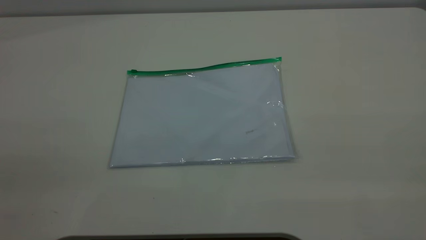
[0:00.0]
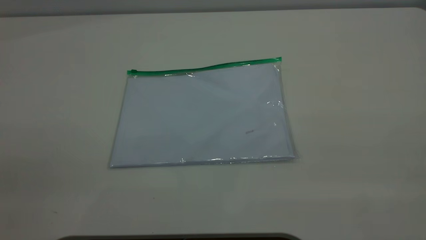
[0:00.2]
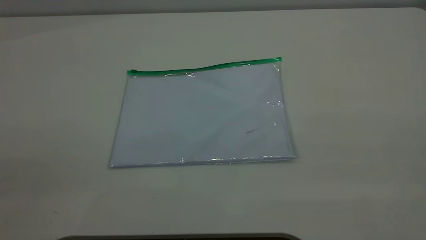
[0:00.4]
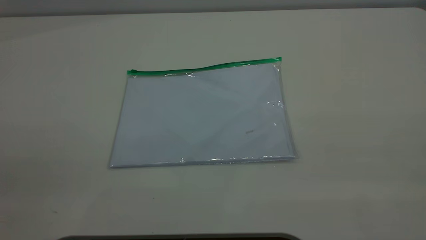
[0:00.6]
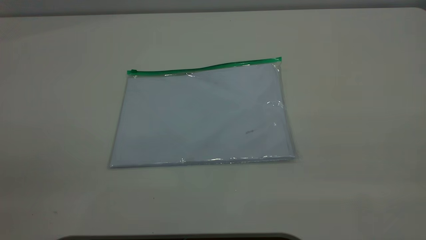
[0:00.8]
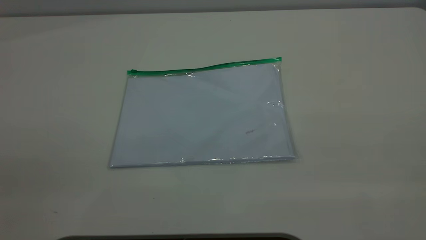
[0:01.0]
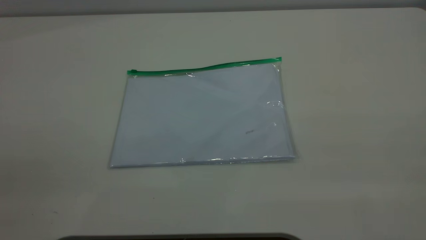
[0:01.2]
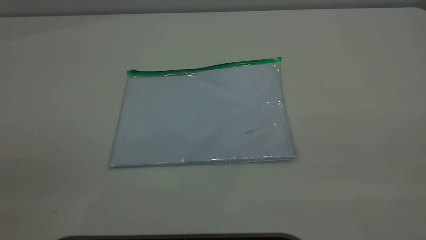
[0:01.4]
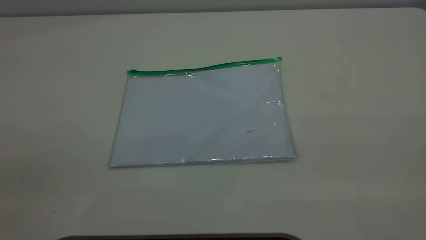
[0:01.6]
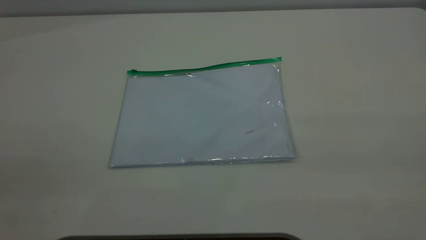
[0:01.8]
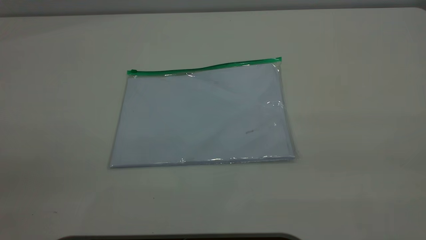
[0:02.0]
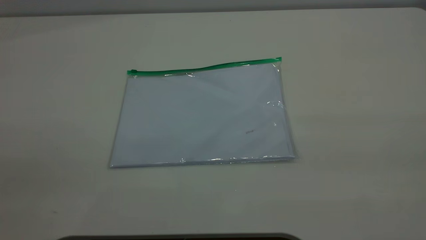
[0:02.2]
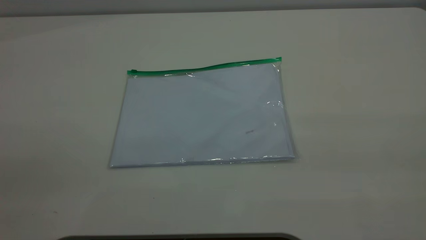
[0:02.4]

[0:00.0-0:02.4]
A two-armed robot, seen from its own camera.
0:00.0 to 0:01.2: The two grippers keep their place.

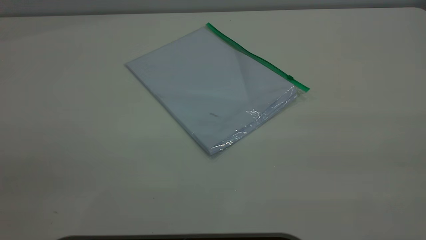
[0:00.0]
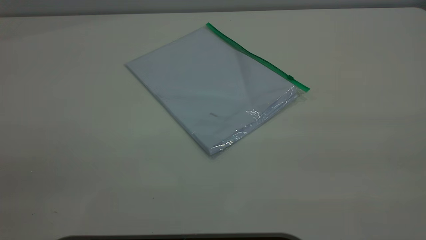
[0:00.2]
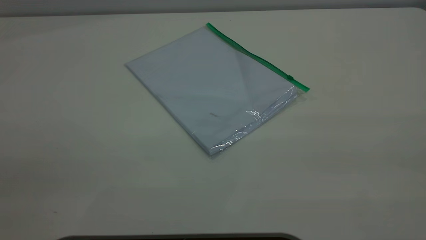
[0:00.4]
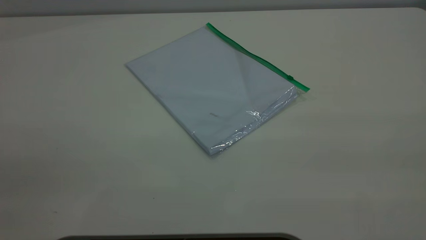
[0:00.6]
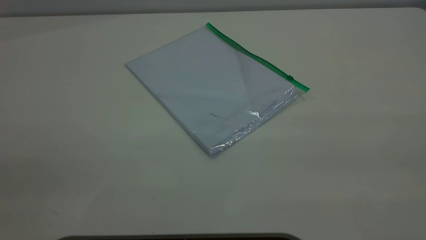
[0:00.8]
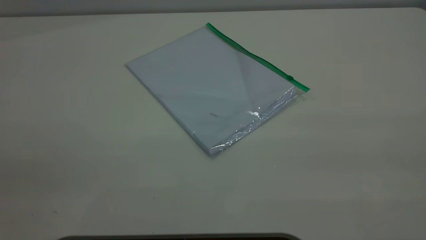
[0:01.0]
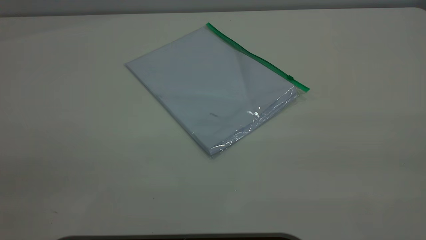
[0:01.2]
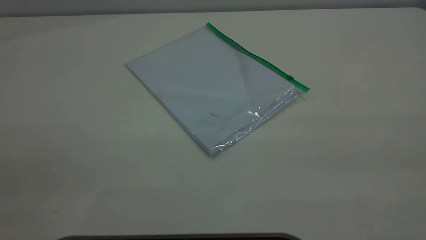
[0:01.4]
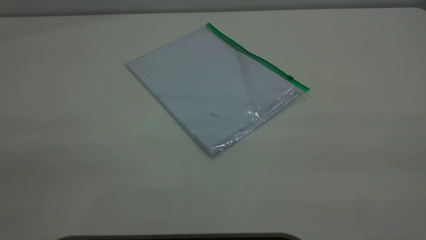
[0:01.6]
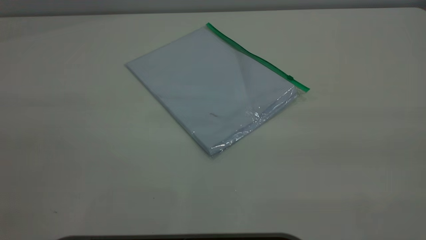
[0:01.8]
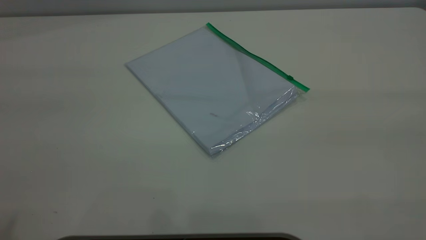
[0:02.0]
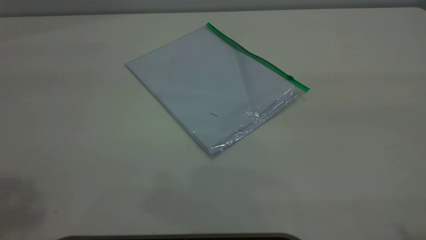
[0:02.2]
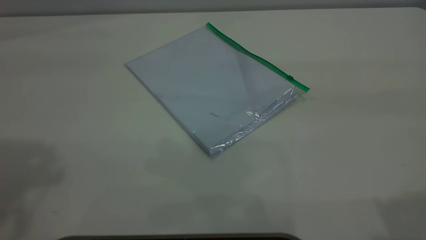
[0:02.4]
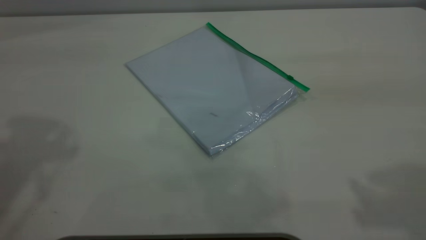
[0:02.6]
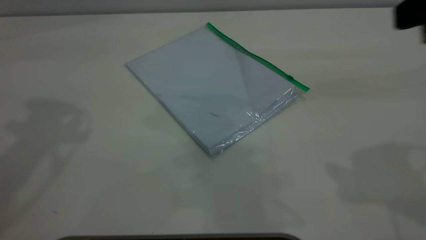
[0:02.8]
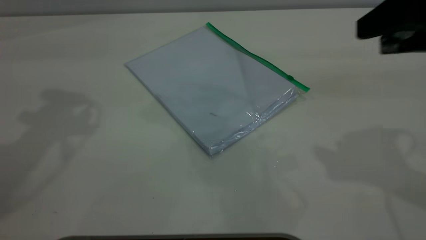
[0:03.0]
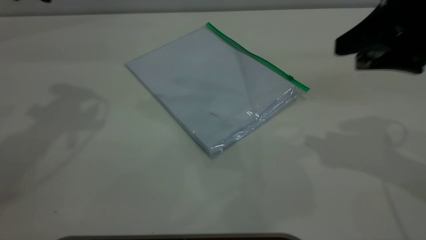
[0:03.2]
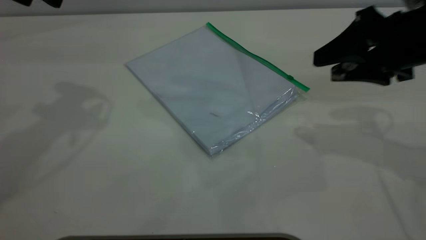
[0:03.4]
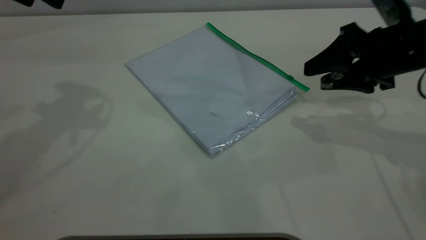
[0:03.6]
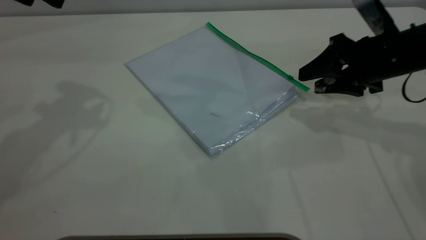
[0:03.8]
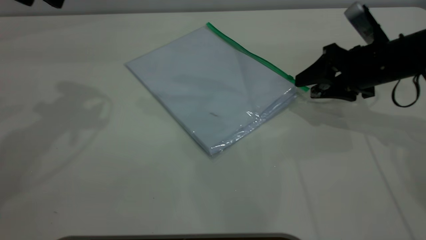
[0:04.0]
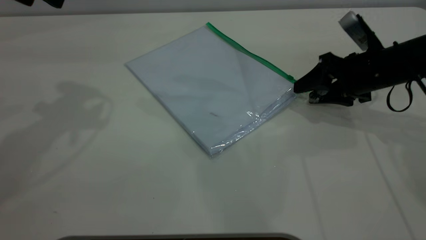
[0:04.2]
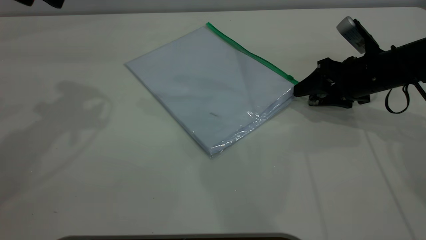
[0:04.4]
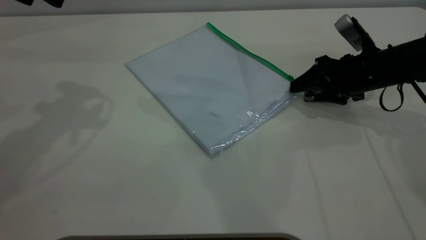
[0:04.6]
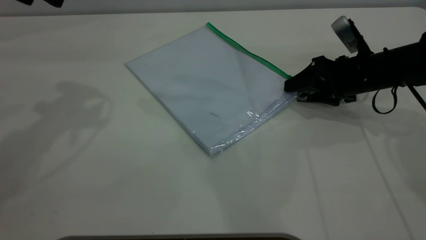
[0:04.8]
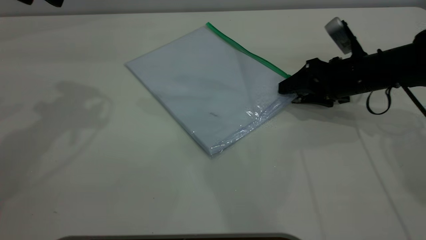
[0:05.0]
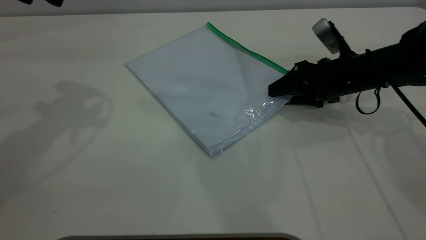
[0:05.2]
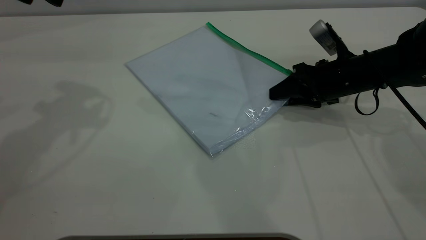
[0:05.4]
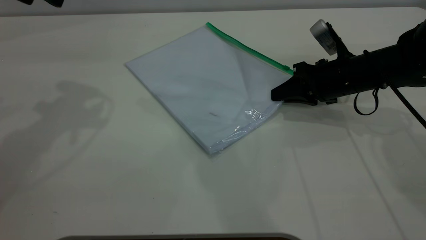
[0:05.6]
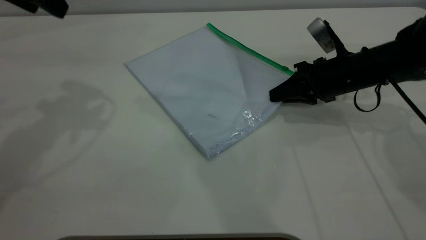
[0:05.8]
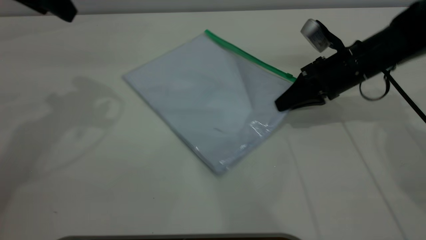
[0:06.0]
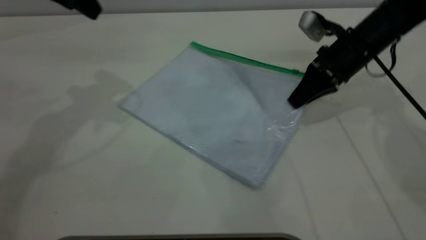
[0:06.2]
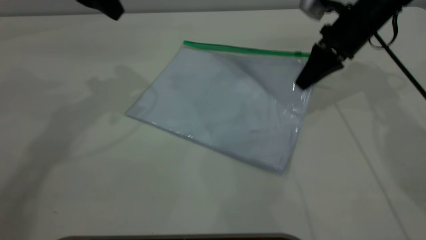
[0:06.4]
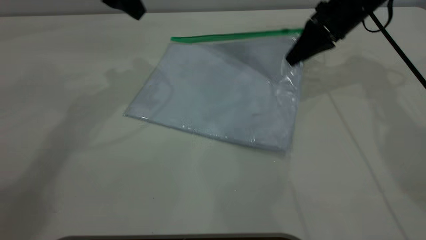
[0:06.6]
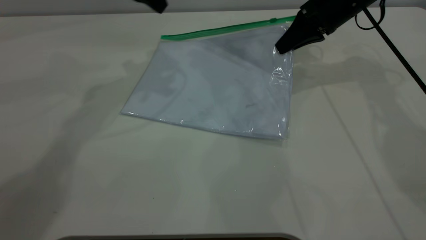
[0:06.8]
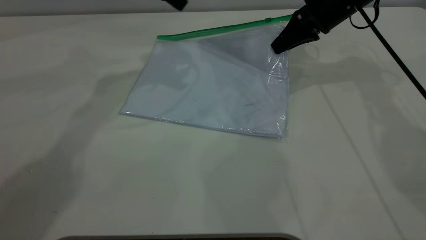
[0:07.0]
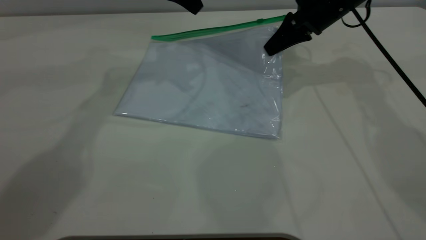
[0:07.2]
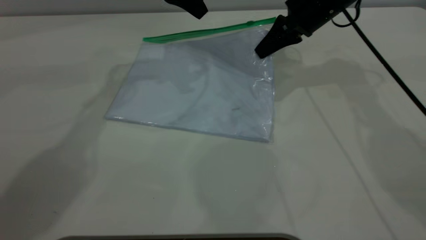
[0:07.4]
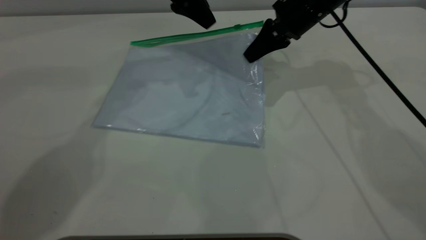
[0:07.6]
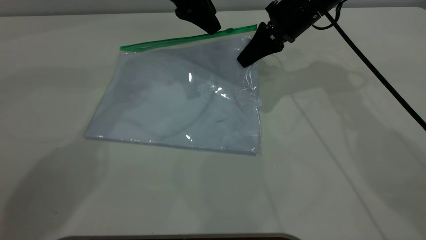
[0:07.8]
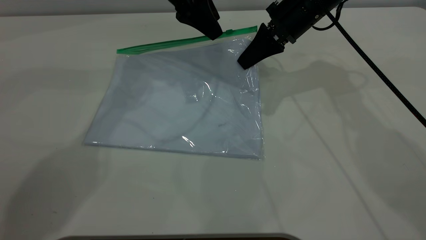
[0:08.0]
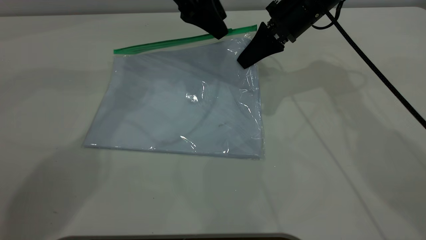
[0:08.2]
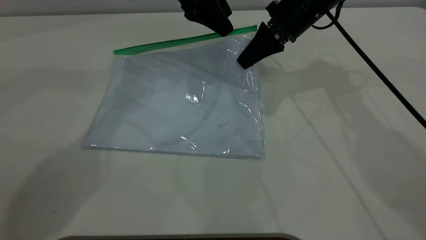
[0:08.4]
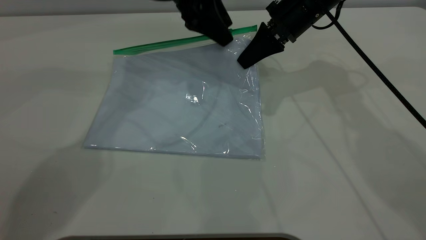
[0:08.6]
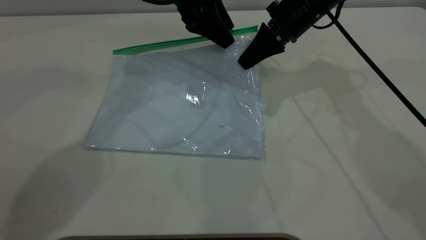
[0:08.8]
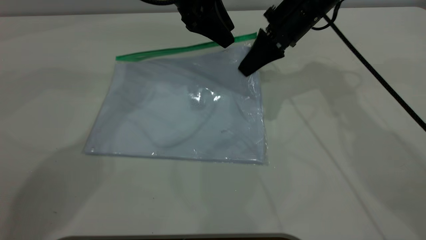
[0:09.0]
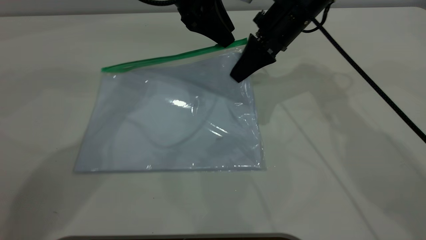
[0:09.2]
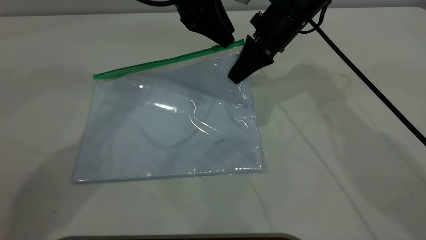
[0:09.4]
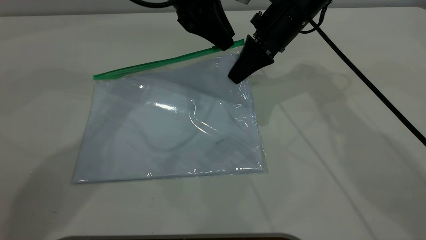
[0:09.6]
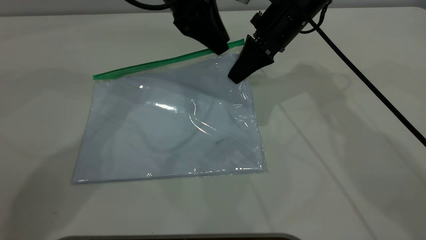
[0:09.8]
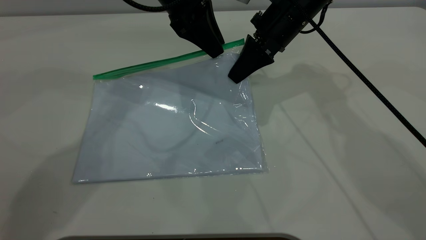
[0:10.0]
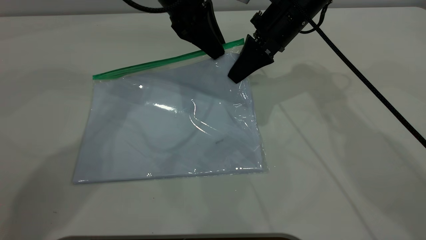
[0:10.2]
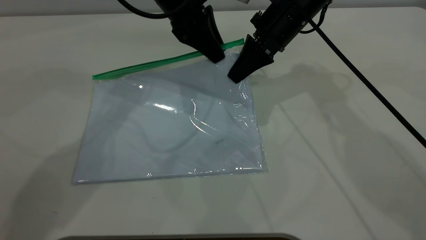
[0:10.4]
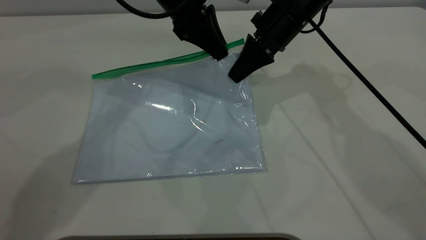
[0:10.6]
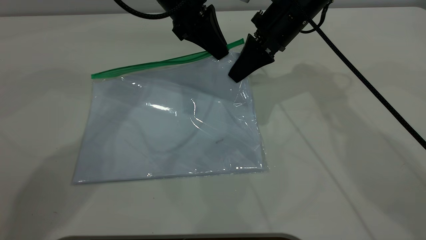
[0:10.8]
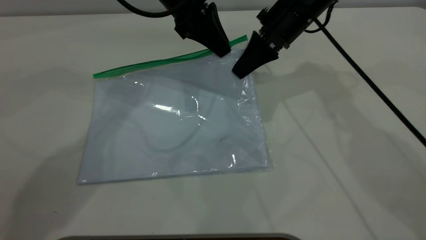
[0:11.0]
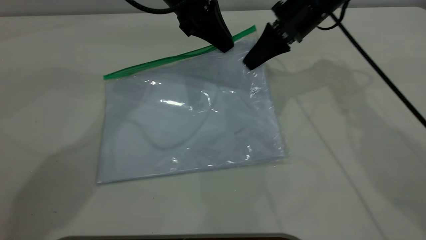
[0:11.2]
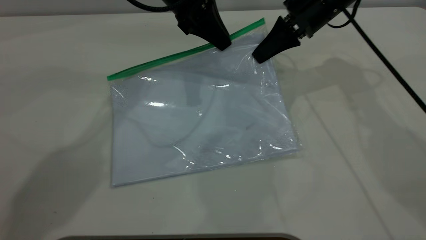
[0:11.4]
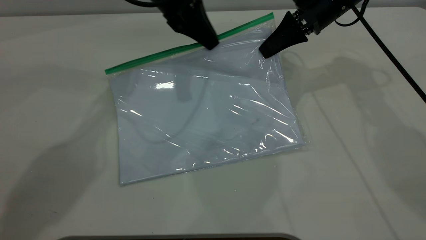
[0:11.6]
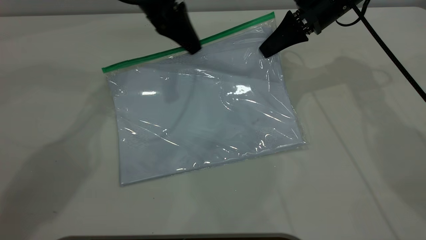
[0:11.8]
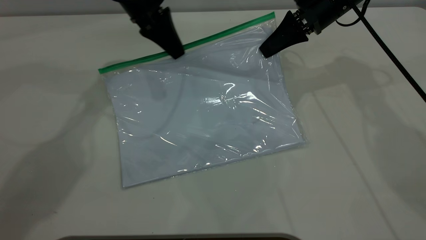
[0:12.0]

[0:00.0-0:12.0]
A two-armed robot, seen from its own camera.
Step, 0:00.0 to 0:06.0: Pick up the transparent plastic bag with the right gripper.
0:01.6 to 0:03.0: The right gripper travels forward and downward by roughly 30 cm.
0:03.0 to 0:04.4: The right gripper goes roughly 25 cm downward and forward.
0:04.4 to 0:06.0: The right gripper closes up.
0:06.0 to 0:07.6: The right gripper goes some 10 cm forward, upward and to the left. Meanwhile the left gripper shifts approximately 20 cm to the right and forward.
0:07.6 to 0:09.0: The grippers make only small movements.
0:09.0 to 0:10.4: The left gripper closes up.
0:10.4 to 0:12.0: The left gripper is displaced to the left by some 5 cm, and closes up, while the right gripper shifts about 10 cm to the right.

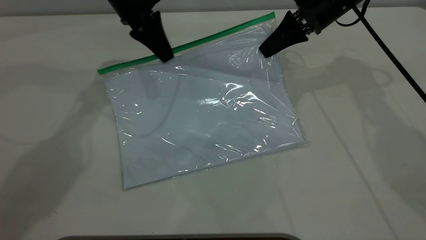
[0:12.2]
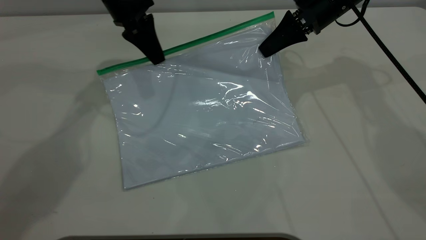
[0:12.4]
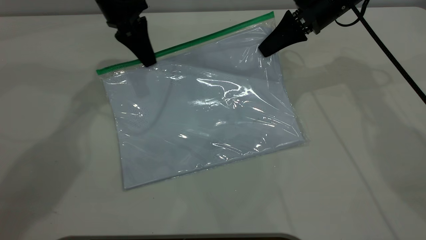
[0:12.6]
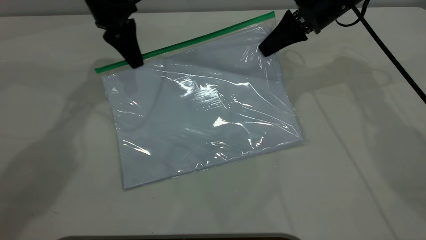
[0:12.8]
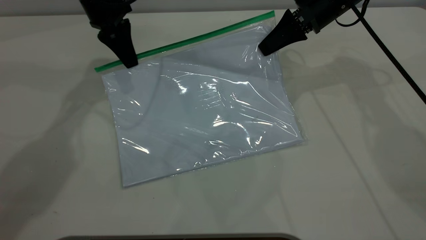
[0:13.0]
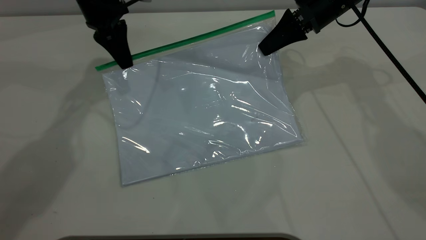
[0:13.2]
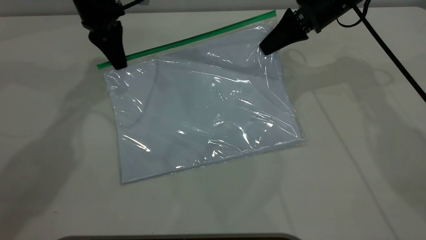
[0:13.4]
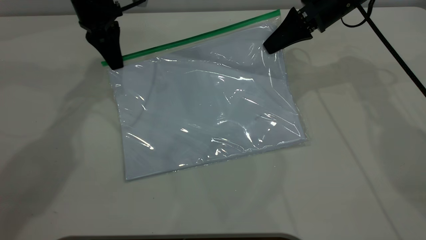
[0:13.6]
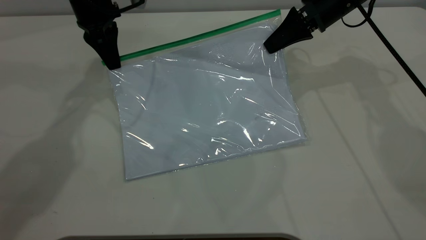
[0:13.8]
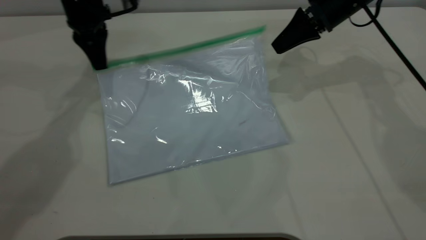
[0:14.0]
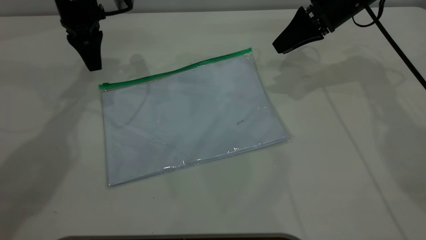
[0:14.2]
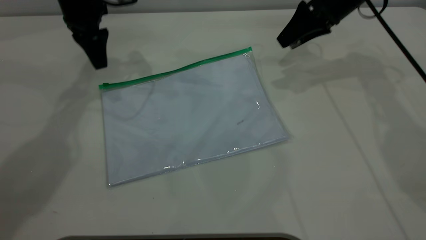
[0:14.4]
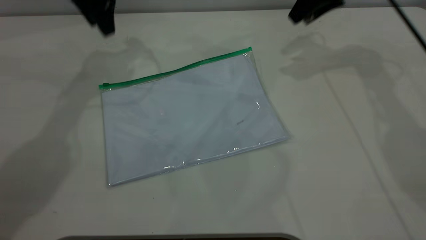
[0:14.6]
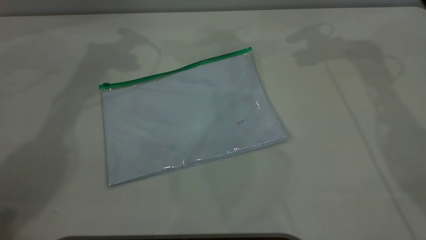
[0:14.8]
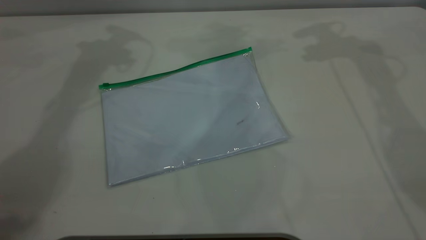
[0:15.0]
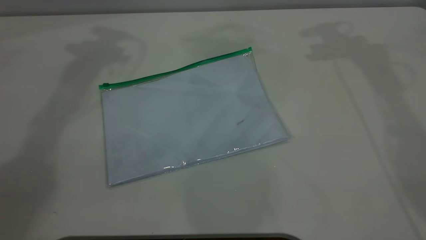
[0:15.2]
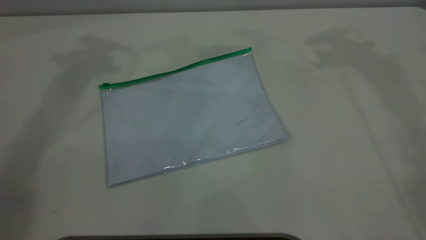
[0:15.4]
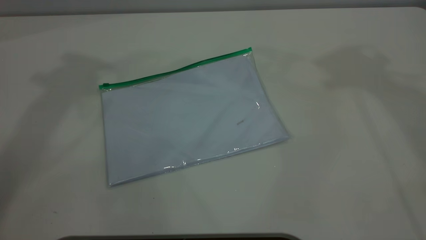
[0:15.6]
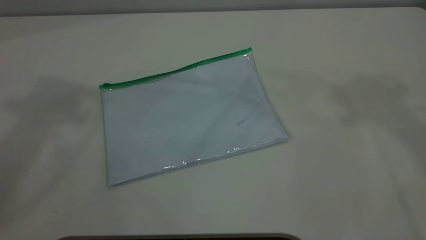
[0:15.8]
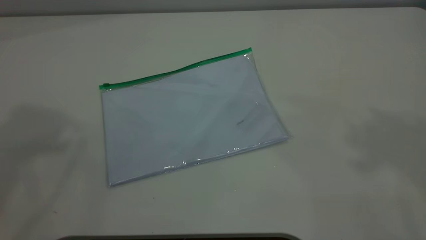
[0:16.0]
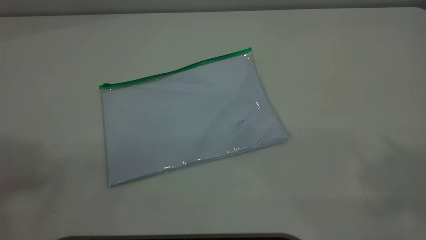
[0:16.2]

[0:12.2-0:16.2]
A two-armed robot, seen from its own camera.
Step, 0:13.8 to 0:14.2: Place the transparent plastic bag.
0:12.2 to 0:13.6: The left gripper moves to the left, about 5 cm.
0:13.6 to 0:14.8: The right gripper is displaced upward and forward by approximately 15 cm, and opens its fingers. The left gripper moves upward, about 10 cm, and opens its fingers.
